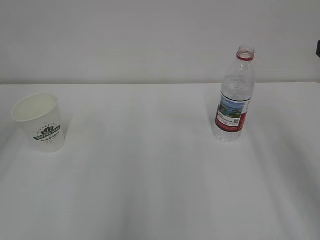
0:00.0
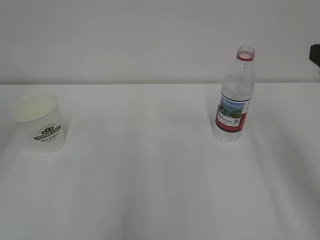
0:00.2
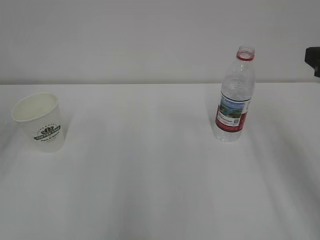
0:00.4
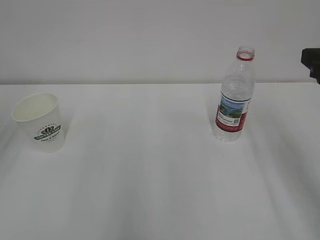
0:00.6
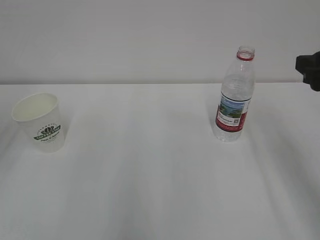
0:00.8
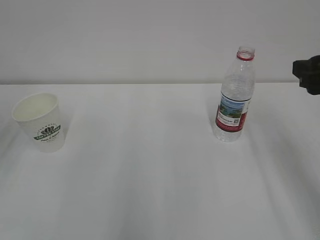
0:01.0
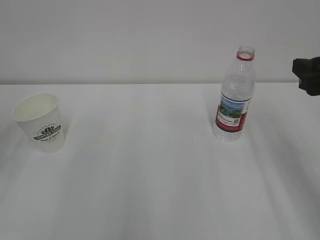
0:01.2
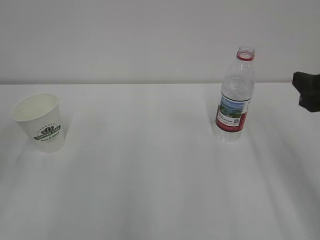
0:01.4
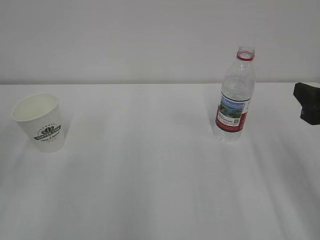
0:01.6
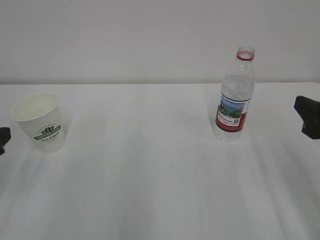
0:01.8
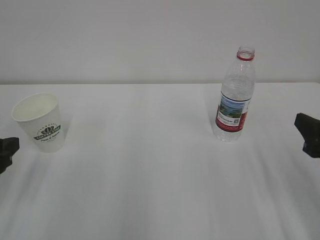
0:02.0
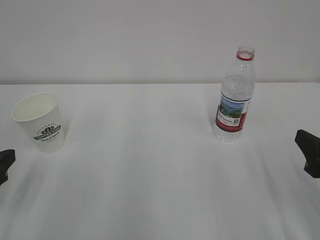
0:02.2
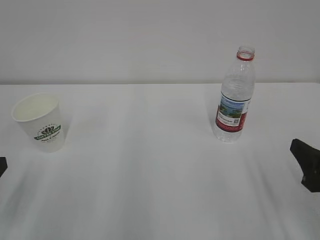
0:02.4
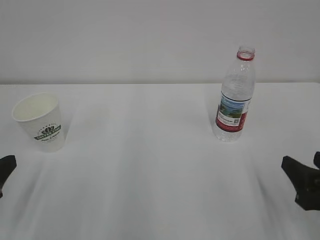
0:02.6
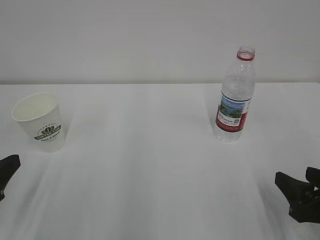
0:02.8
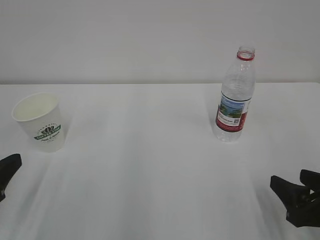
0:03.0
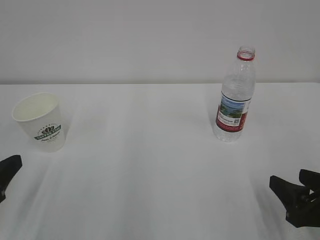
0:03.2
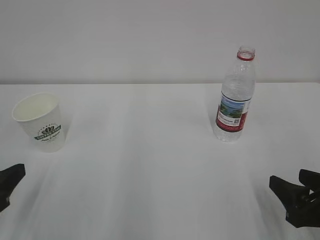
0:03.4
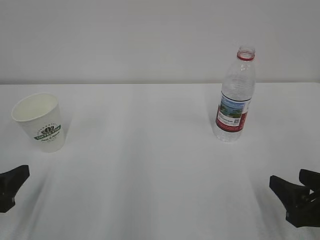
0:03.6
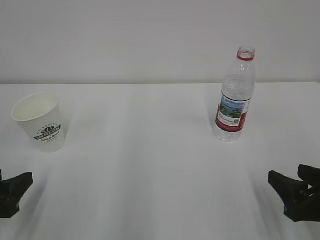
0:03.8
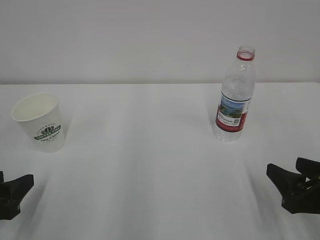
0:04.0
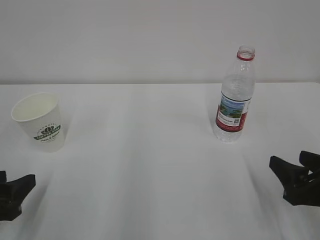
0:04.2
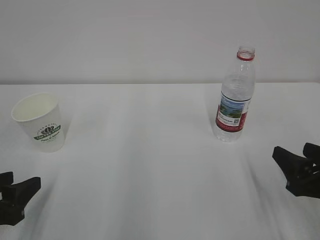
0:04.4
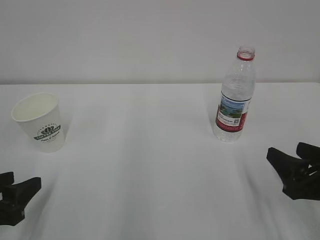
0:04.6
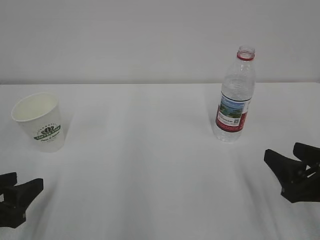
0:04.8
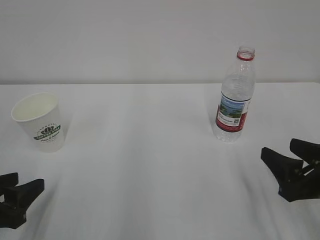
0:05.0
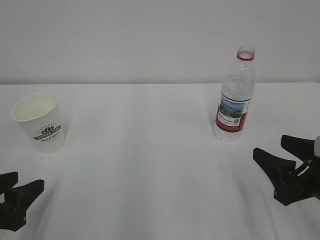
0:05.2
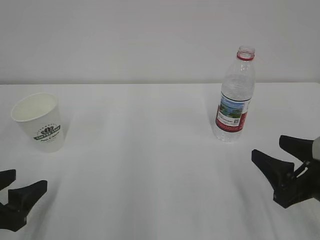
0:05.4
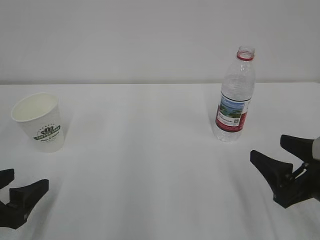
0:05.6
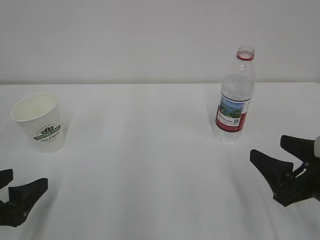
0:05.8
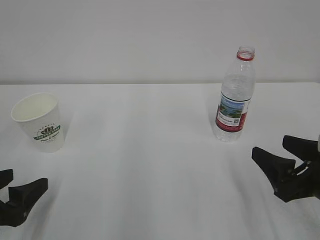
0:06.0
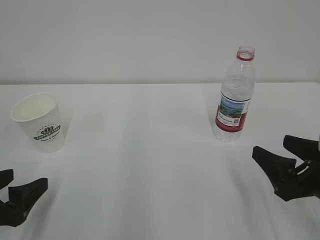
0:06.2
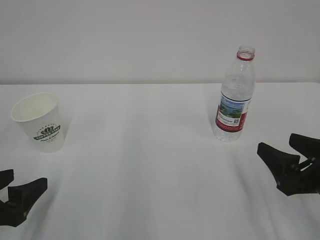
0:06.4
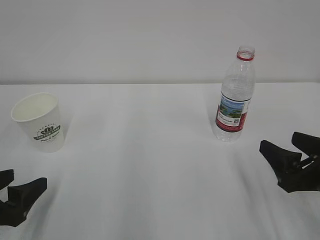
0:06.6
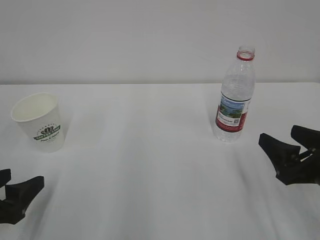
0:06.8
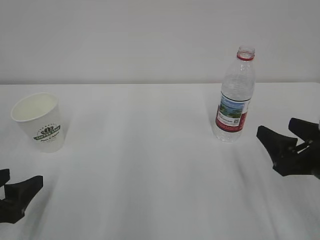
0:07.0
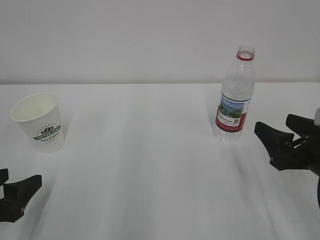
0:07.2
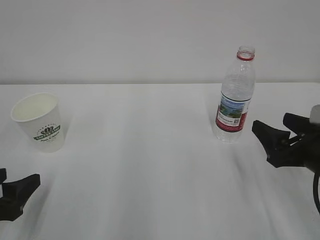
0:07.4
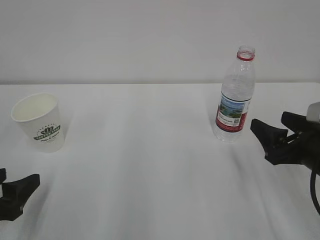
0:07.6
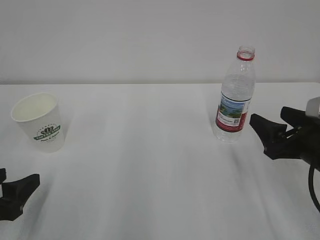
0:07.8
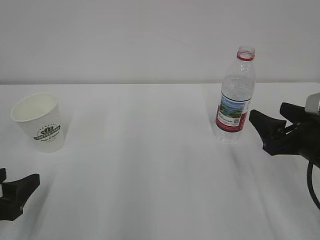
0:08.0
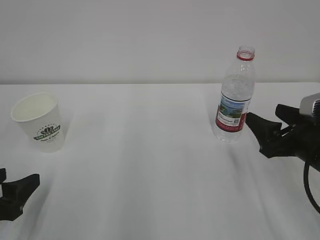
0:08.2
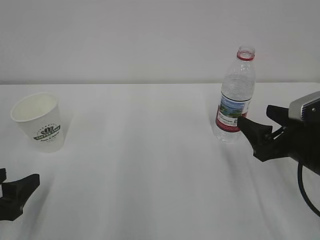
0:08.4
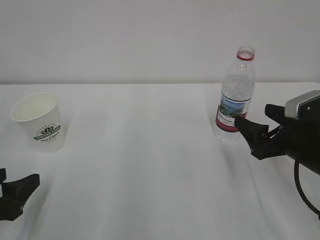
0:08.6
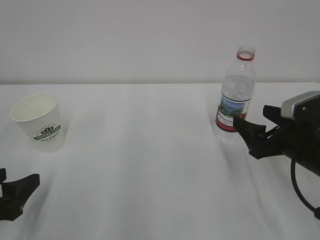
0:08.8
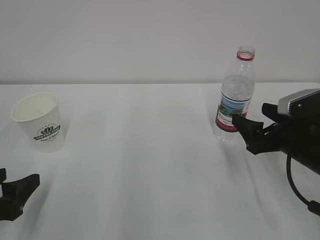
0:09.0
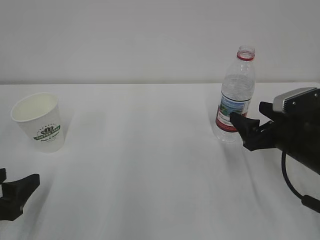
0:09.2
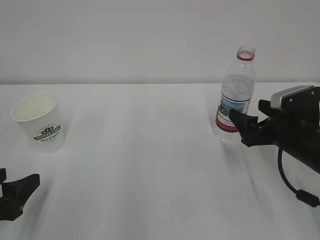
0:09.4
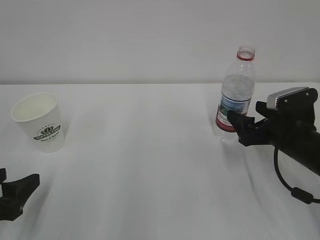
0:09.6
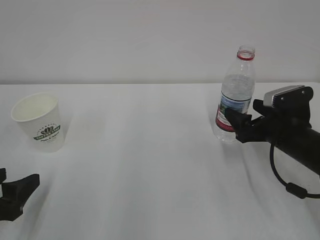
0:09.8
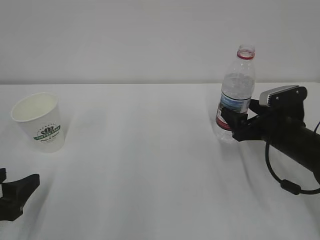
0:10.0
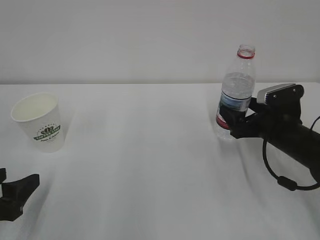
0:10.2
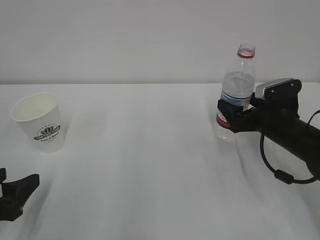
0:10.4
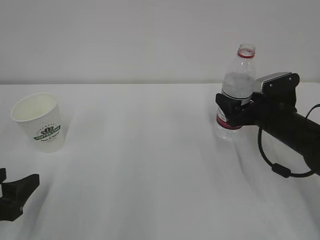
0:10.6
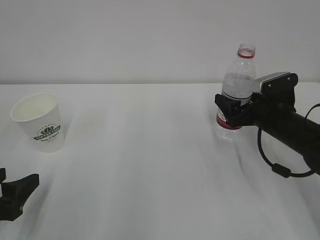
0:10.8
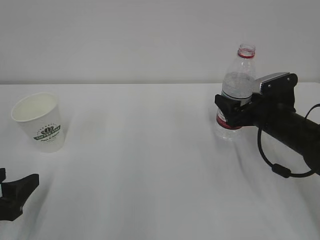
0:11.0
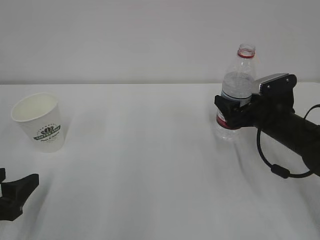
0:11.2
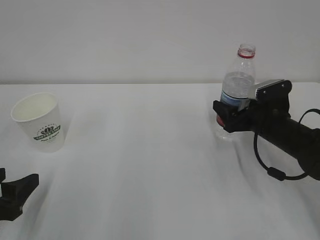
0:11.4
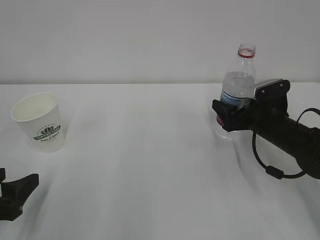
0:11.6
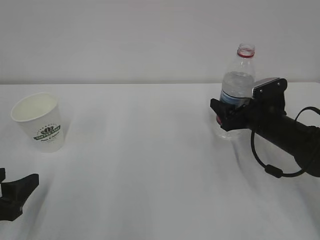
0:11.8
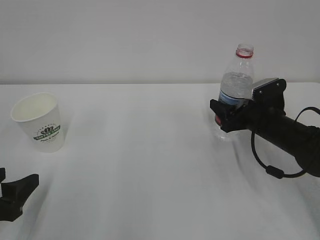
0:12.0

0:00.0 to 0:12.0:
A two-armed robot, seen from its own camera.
0:00.0 to 0:01.6: The right gripper travels downward by about 10 cm.
0:01.6 to 0:03.0: The left gripper is displaced backward by about 5 cm; the right gripper shifts some 15 cm downward and backward.
0:03.0 to 0:04.4: The grippers make only small movements.
0:04.4 to 0:06.0: The left gripper opens its fingers.
0:06.0 to 0:07.6: The grippers stay close to where they were, moving slightly.
0:07.6 to 0:09.0: There are only small adjustments of the grippers.
0:09.0 to 0:10.4: The right gripper shifts some 5 cm forward.
0:10.4 to 0:12.0: The right gripper closes its fingers.

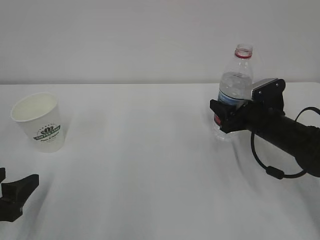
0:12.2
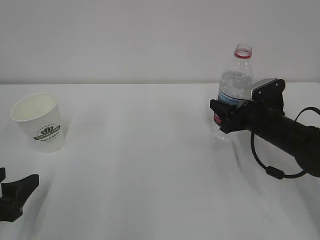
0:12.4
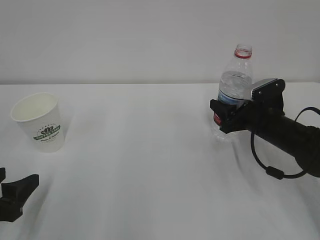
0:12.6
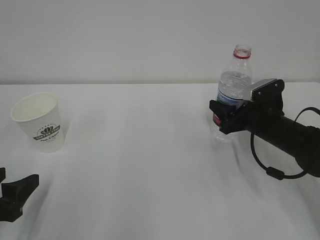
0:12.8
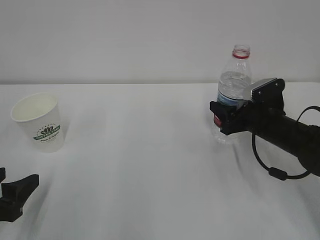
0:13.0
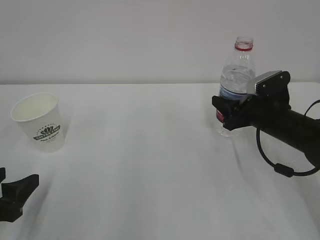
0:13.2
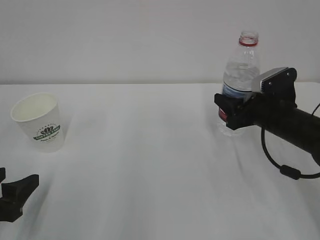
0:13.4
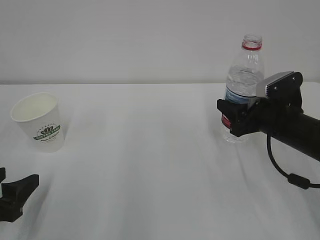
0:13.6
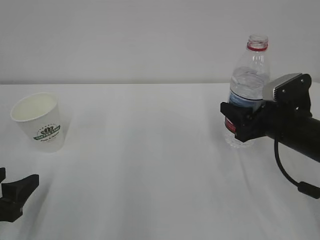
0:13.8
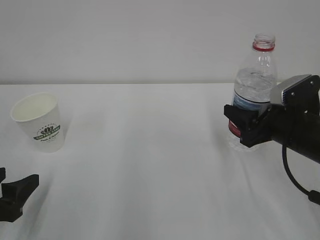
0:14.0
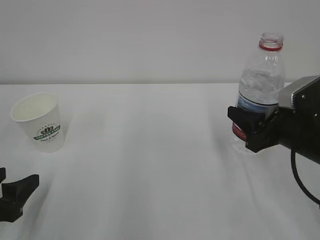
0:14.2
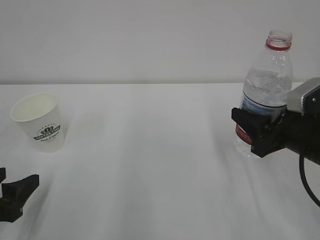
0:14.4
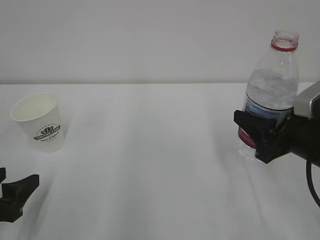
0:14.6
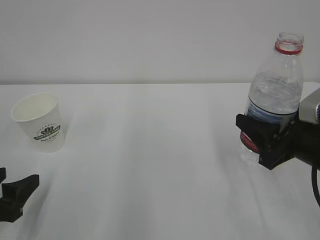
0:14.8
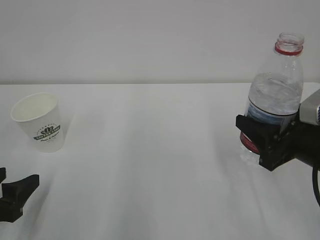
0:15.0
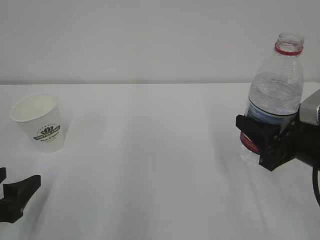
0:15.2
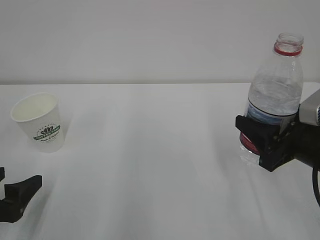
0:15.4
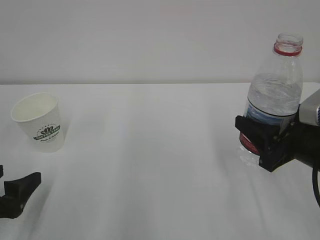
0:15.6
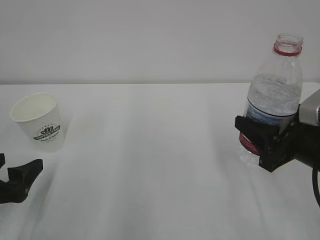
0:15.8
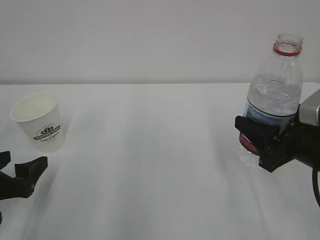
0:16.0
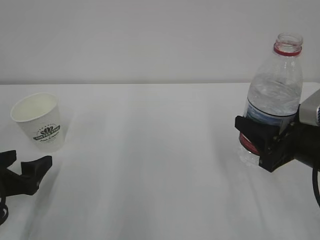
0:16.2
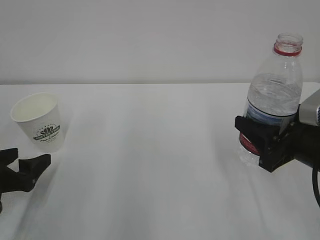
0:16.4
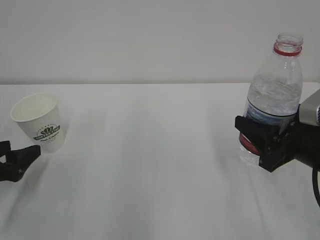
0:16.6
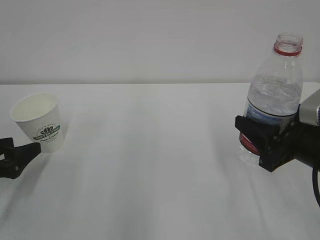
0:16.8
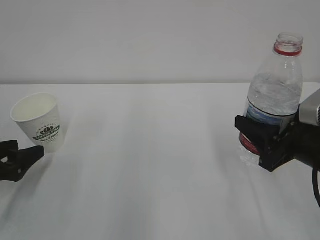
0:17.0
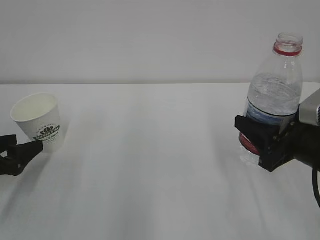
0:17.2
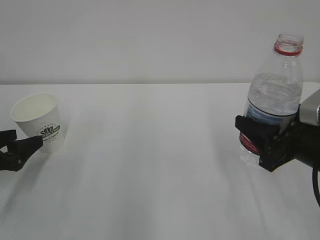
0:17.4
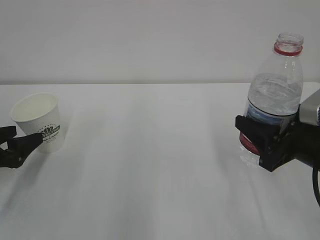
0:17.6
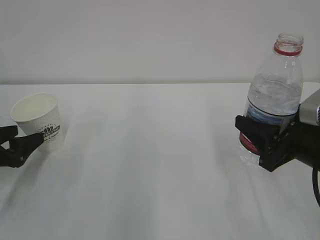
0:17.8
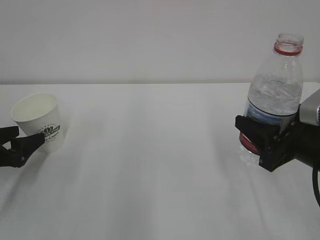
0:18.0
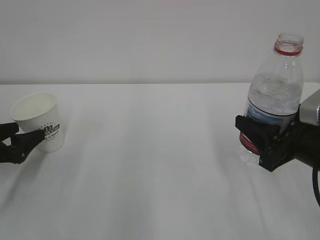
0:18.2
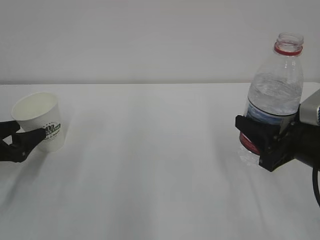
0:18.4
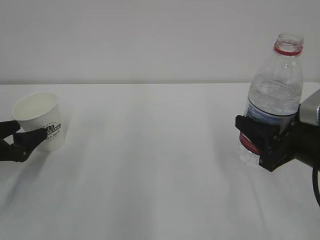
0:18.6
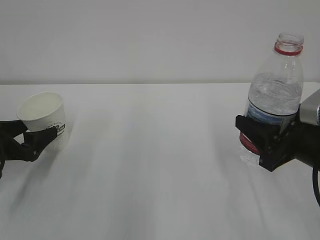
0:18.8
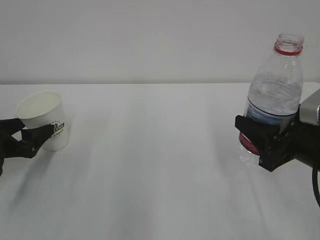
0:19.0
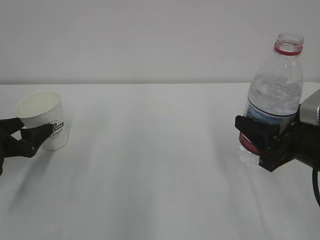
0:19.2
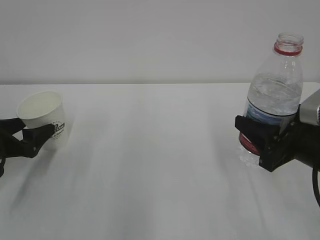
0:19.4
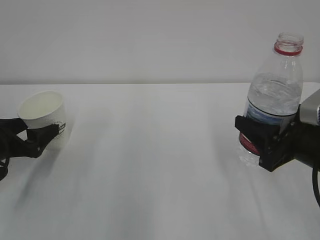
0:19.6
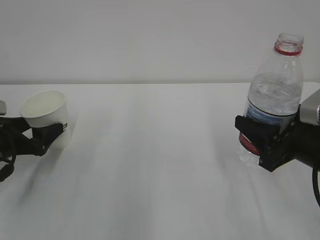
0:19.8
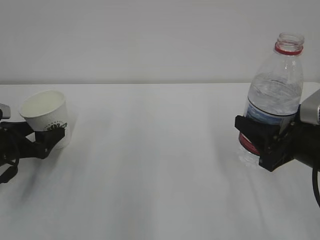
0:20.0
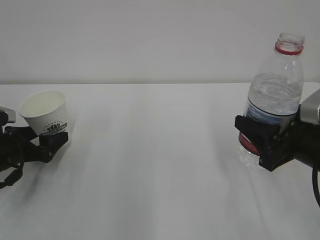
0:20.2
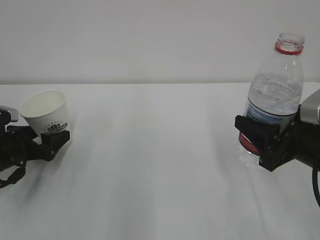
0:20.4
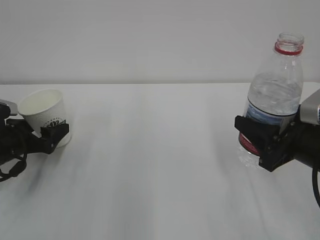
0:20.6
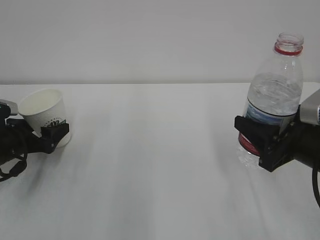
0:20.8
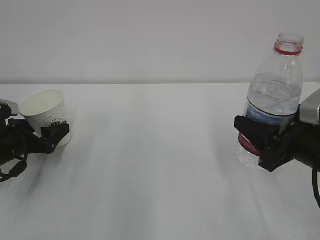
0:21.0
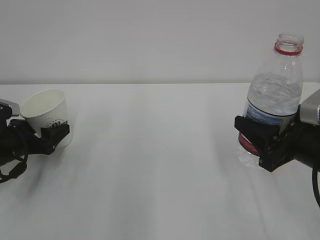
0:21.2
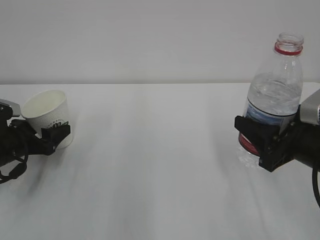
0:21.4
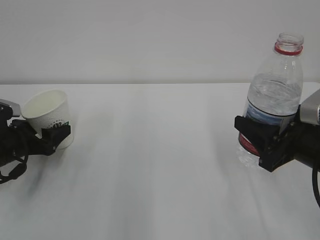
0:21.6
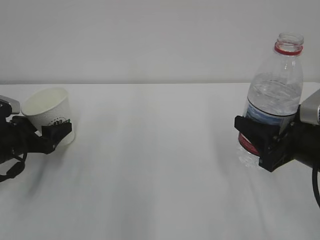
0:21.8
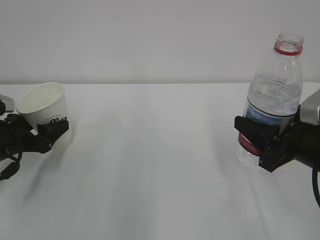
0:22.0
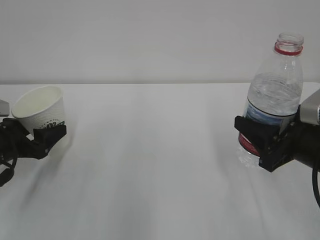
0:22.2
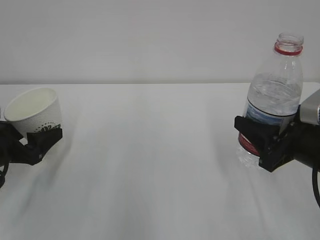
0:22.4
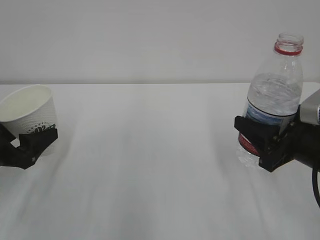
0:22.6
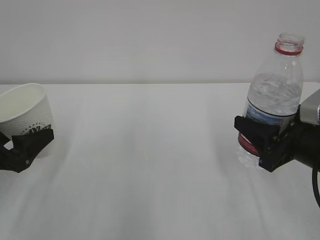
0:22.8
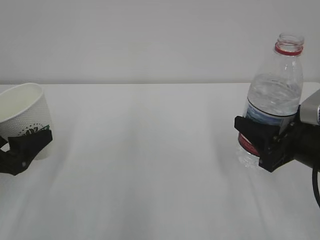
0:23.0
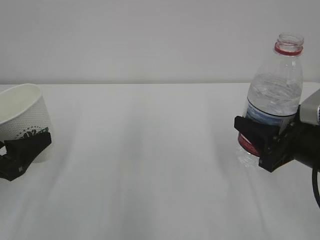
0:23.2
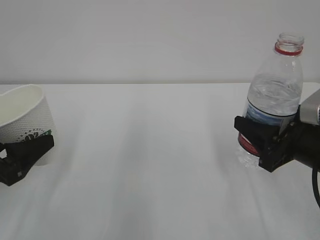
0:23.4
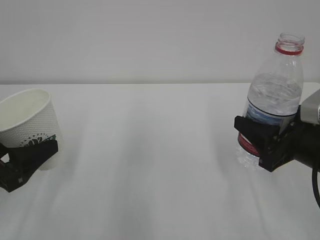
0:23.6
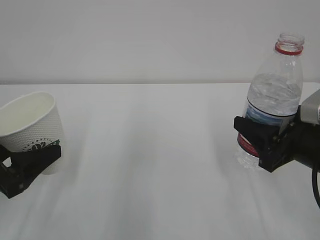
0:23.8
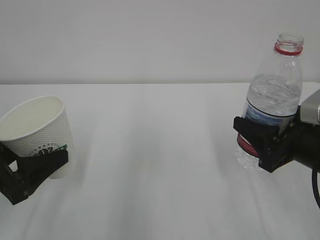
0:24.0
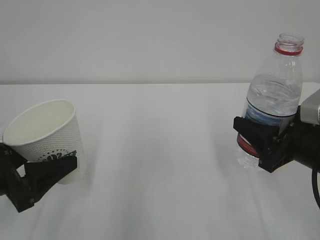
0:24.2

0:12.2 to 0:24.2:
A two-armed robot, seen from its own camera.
0:12.2 to 0:13.8: The right gripper moves backward, some 5 cm.
0:13.8 to 0:15.2: The right gripper heads backward, covering about 10 cm.
0:15.2 to 0:16.6: The left gripper heads forward, covering approximately 5 cm.
0:16.6 to 0:18.2: The left gripper moves roughly 5 cm.
0:18.2 to 0:19.8: The grippers make only small movements.
0:19.8 to 0:21.2: The left gripper closes its fingers.
0:21.2 to 0:22.6: The left gripper moves backward and upward, roughly 10 cm.
0:22.6 to 0:24.2: The left gripper heads backward, covering roughly 5 cm.
